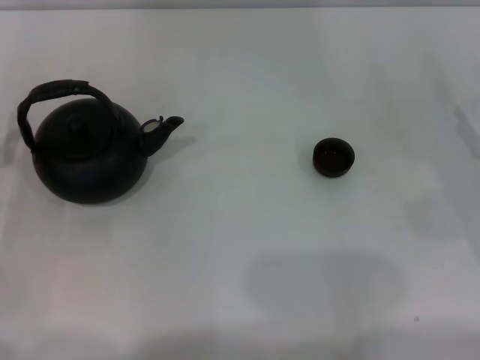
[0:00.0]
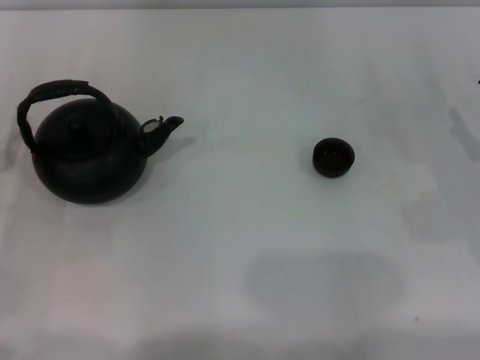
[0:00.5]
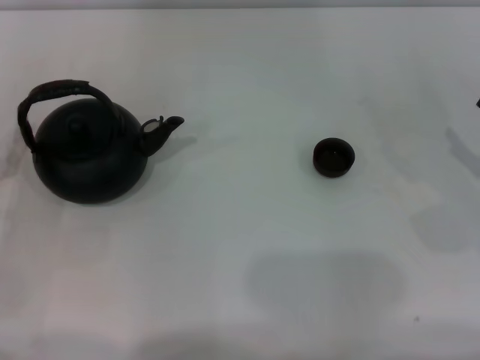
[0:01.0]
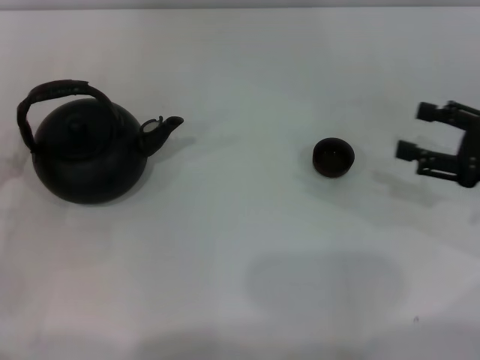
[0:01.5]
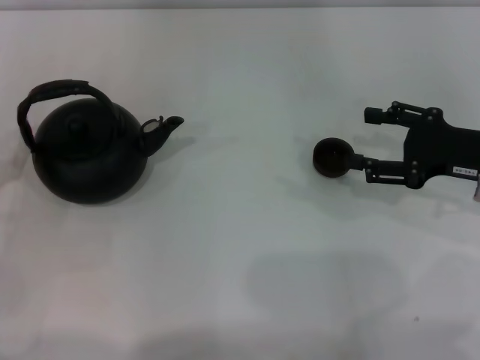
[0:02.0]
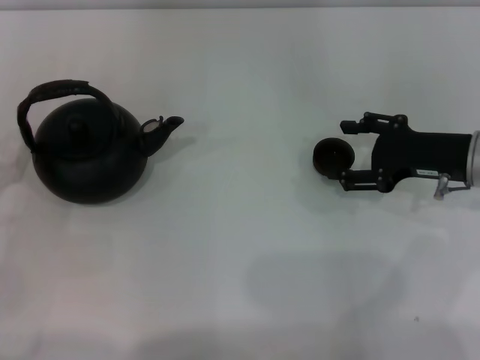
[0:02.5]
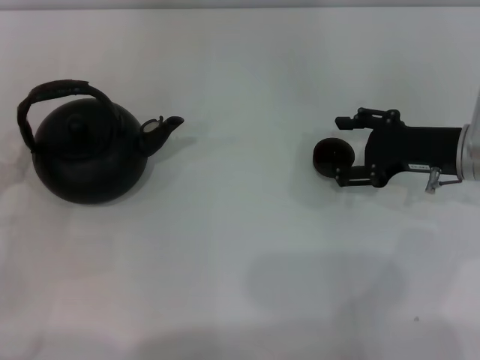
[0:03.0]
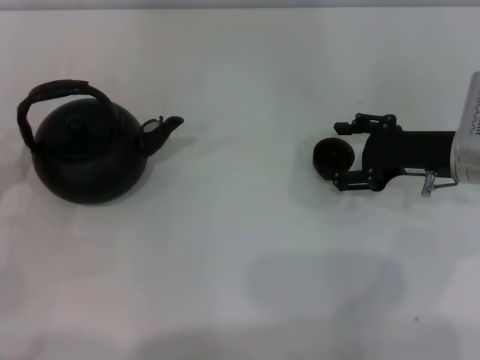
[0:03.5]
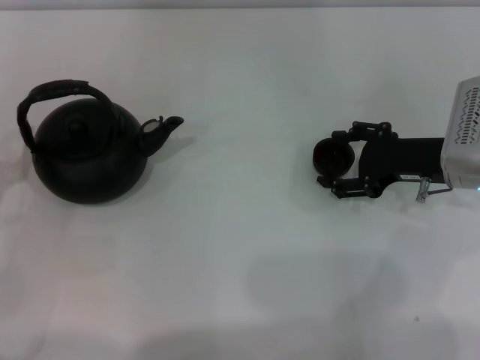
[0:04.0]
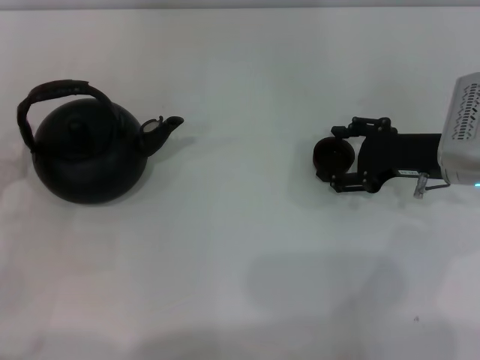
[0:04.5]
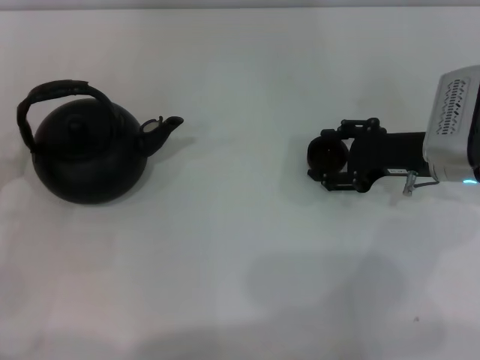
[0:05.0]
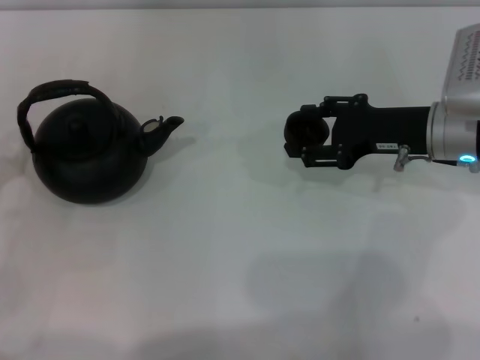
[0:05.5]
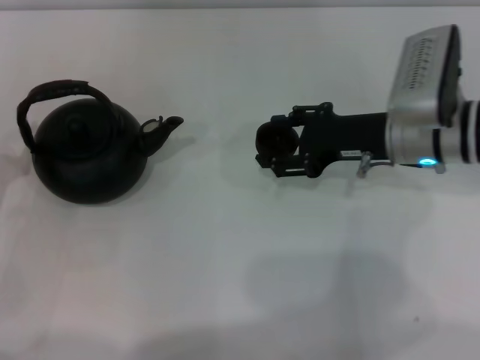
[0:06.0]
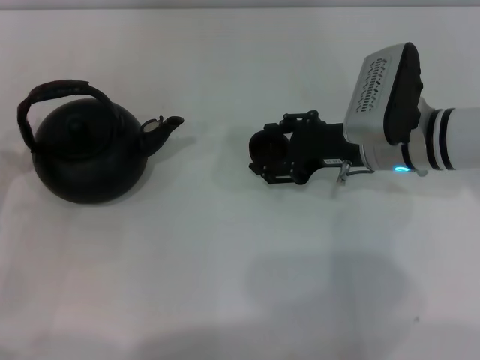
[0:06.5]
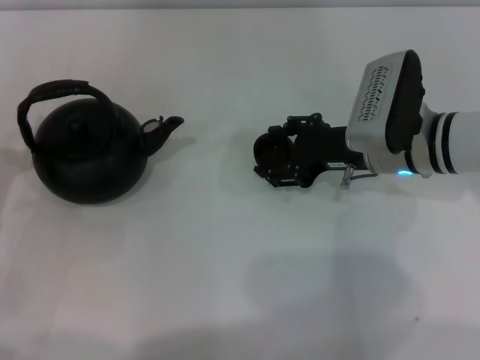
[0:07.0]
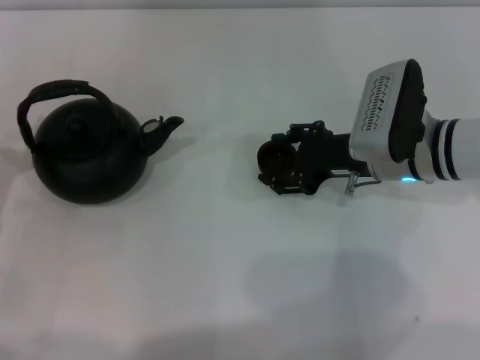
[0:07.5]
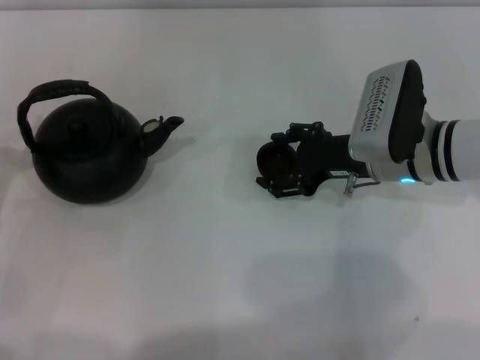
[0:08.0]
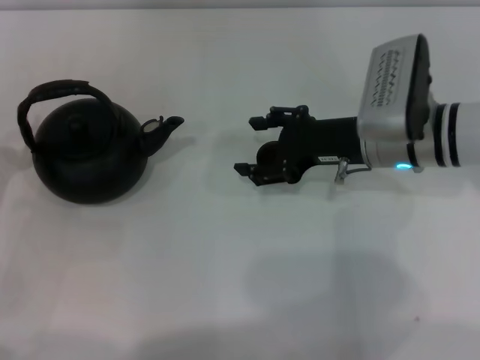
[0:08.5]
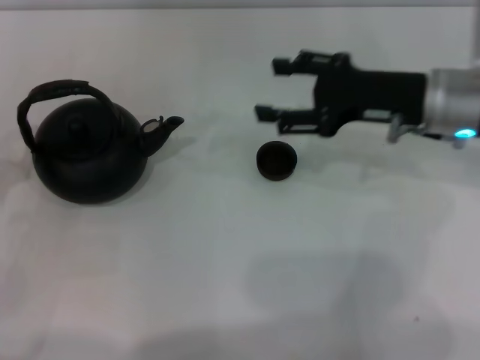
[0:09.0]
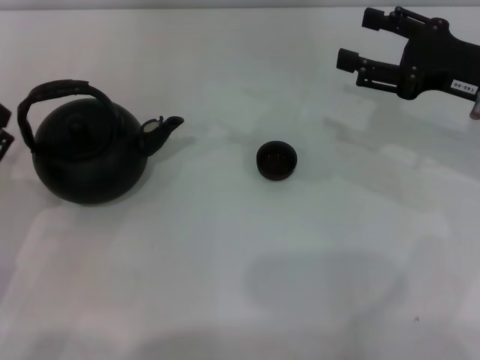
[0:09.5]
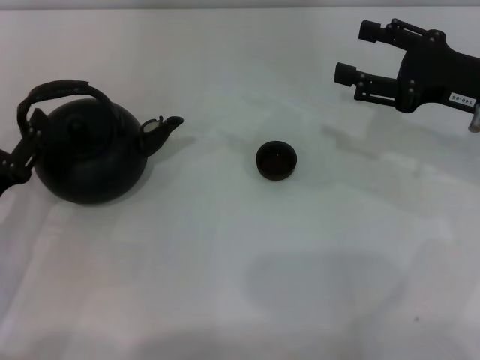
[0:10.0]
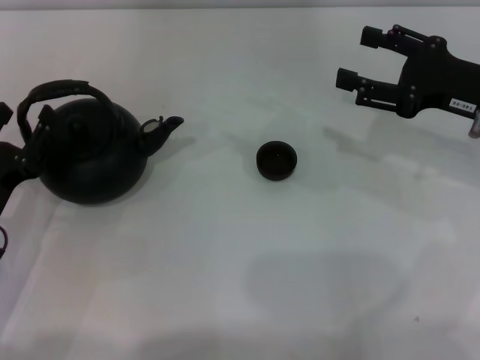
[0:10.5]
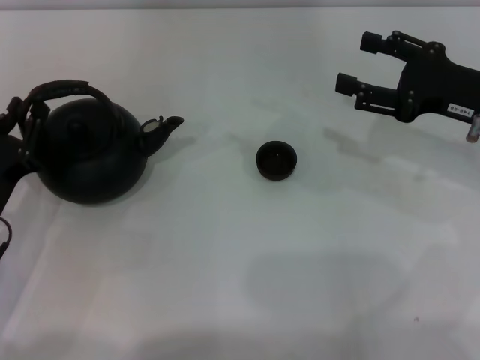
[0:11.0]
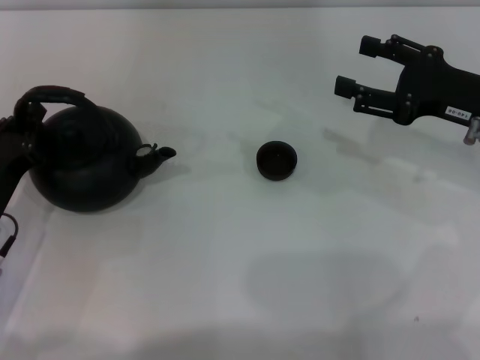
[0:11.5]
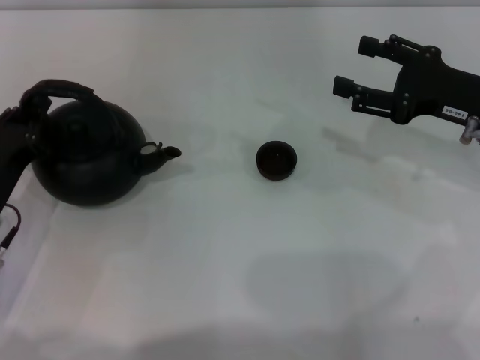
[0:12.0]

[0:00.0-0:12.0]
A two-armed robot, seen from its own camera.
Task of the whole recording: Grasp the handle of the teapot with one hand and pour tea into the teacup.
Step, 0:00.0 to 0:05.0: Pick up the teacup with the right gripper.
Step, 0:06.0 to 0:08.5: Place the teacup in the center of view with the right gripper.
0:00.0 to 0:02.0: The right gripper travels to the left by roughly 5 cm.
0:02.0 to 0:04.0: The right gripper changes place by roughly 5 cm.
0:04.0 to 0:06.0: The right gripper is displaced to the left by approximately 5 cm.
0:06.0 to 0:08.0: The grippers make only small movements.
0:08.0 to 0:10.0: The right gripper is displaced to the right and upward by about 10 cm.
0:10.0 to 0:12.0: The left gripper closes its fingers.

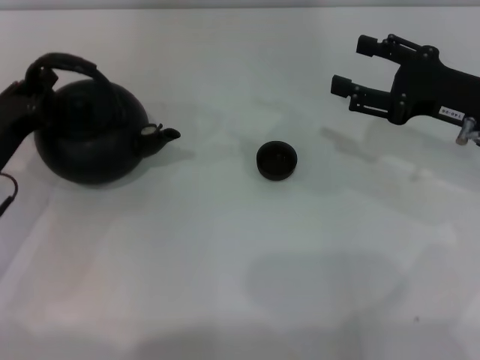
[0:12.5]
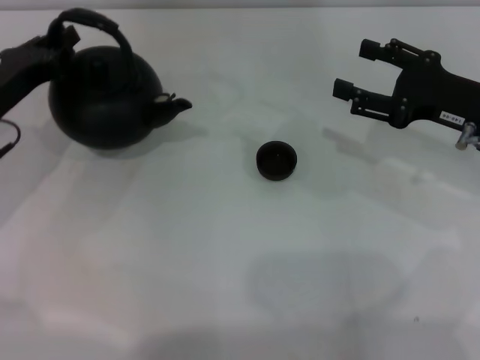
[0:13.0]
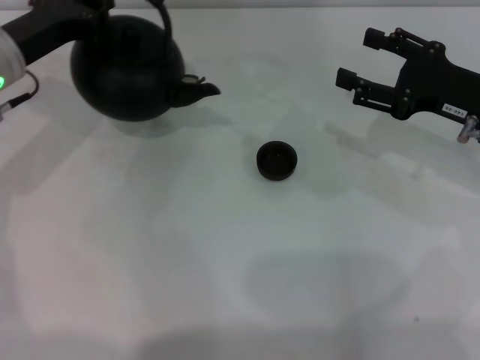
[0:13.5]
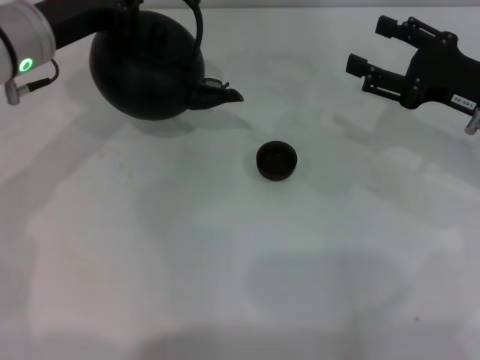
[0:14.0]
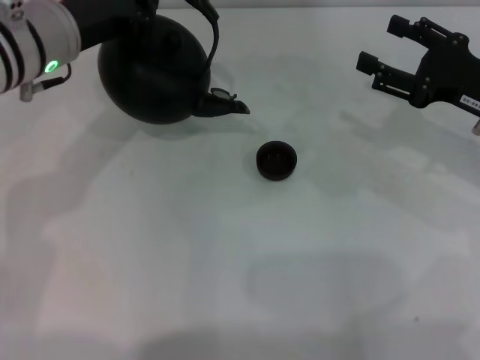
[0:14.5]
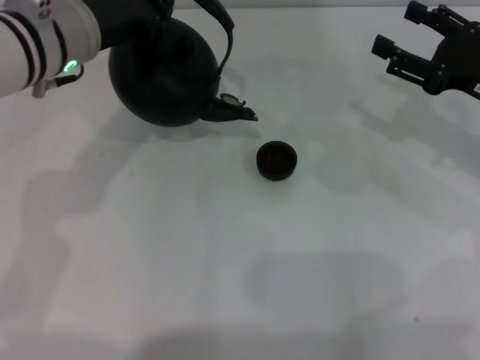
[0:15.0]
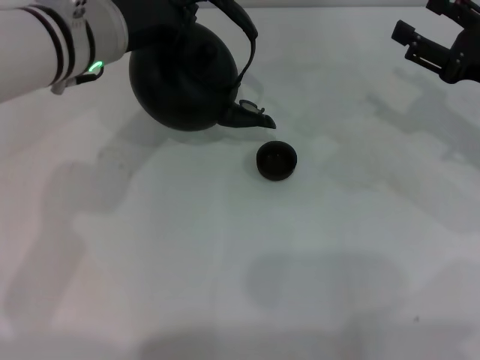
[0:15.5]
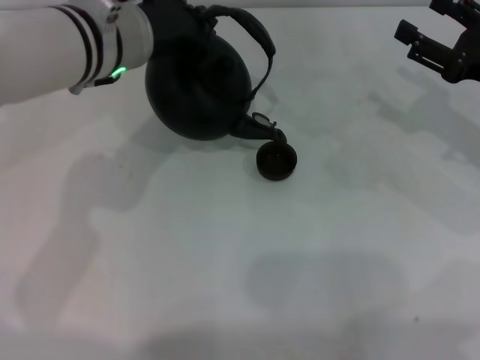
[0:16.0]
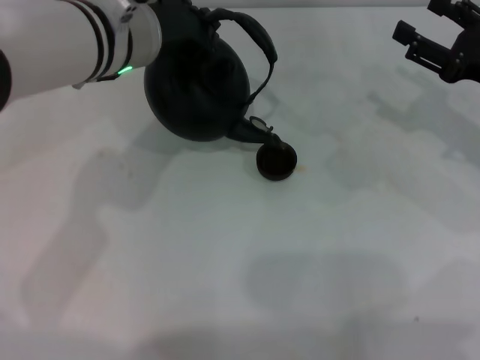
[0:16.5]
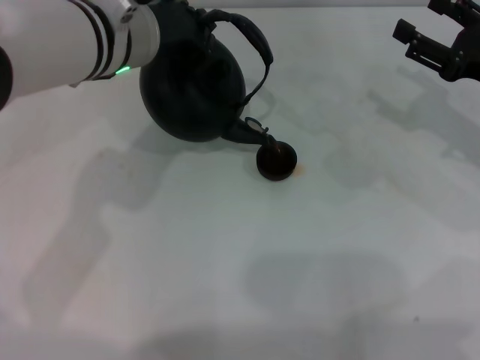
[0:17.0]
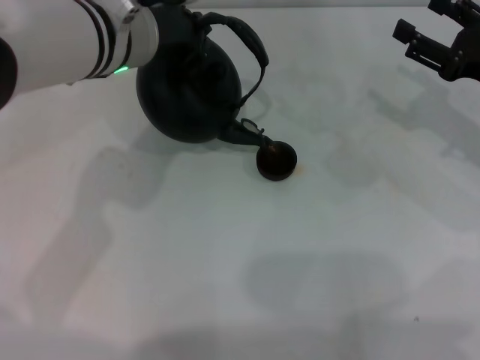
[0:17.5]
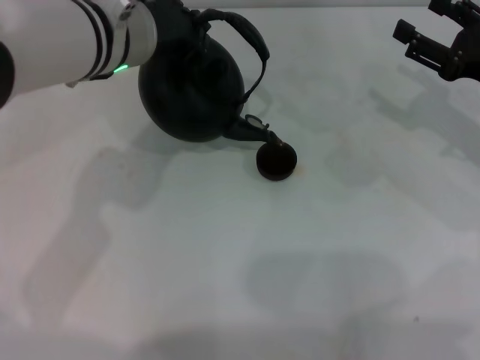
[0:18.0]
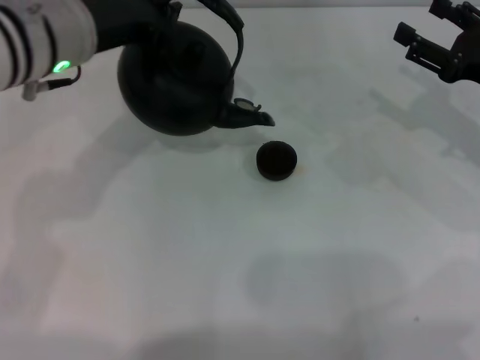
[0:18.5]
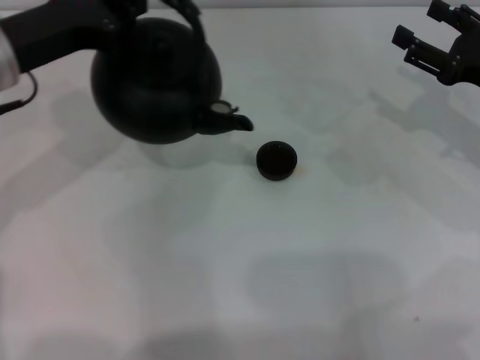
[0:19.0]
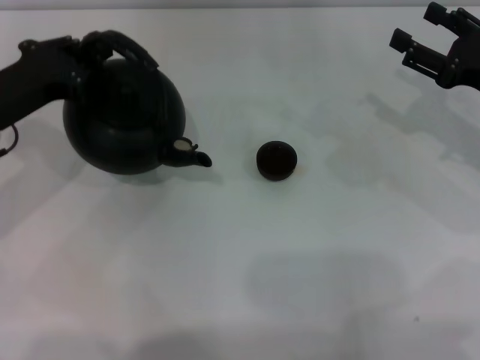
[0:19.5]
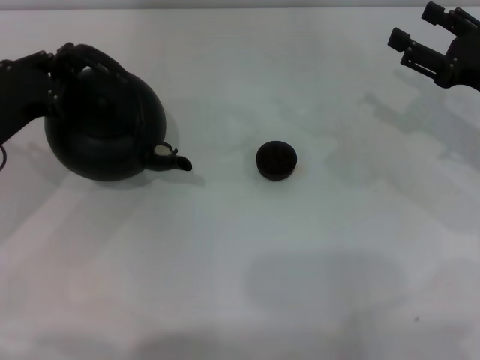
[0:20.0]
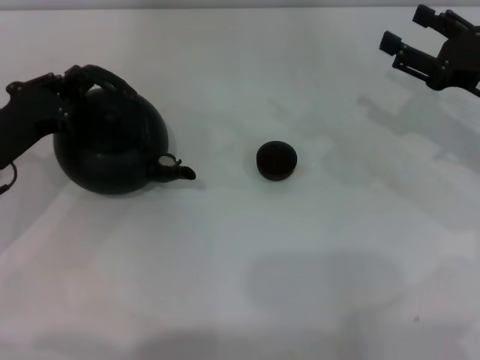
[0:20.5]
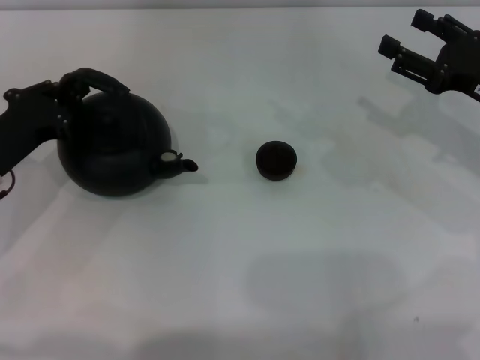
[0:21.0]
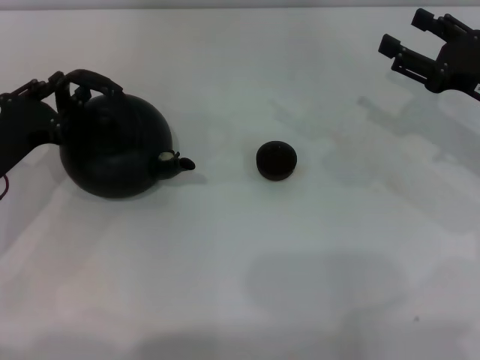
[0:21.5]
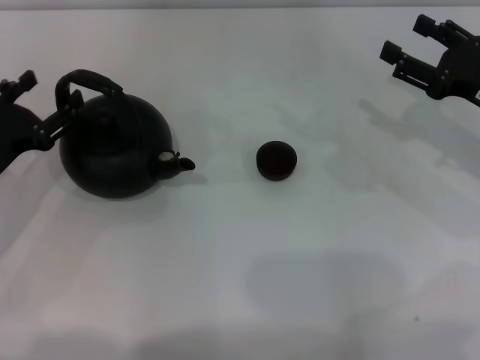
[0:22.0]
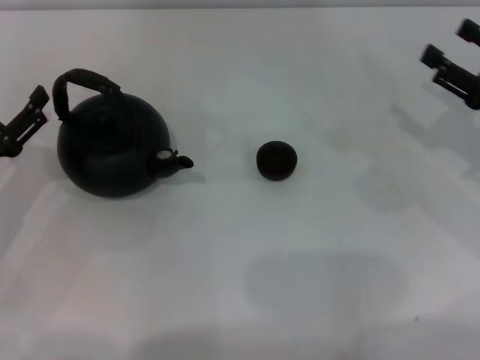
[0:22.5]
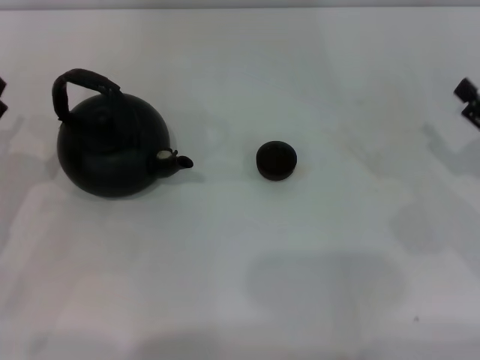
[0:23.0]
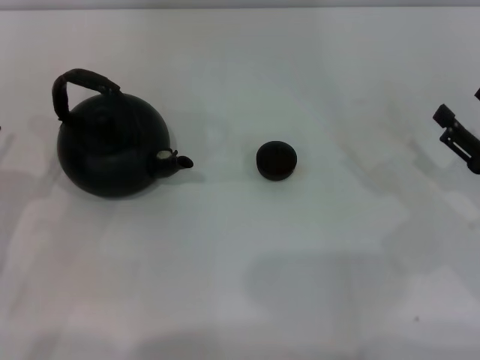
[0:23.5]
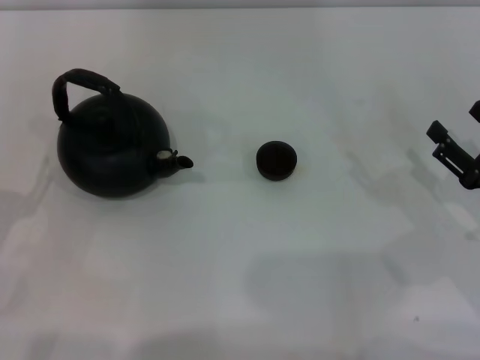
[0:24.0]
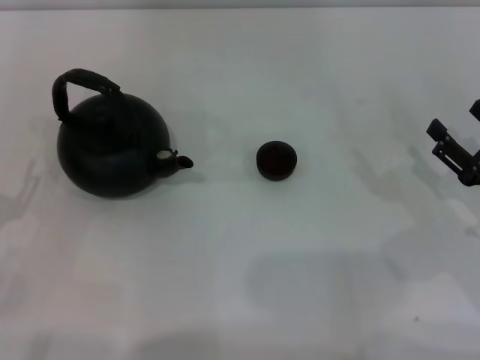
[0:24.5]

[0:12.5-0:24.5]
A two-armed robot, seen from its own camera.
Task of the whole recording: Grasp the handle of the teapot with one hand and pour tea into the teacup.
Step, 0:13.0 to 0:18.0: Pour tea into the teacup with the left gripper.
Step, 0:18.5 to 0:22.0: Put down the teapot with the left gripper.
0:12.5 to 0:14.5: The left gripper shifts some 20 cm upward, to the right and forward.
0:14.5 to 0:16.5: The left gripper heads to the right, covering roughly 5 cm.
0:16.5 to 0:18.5: The left gripper is displaced to the left by roughly 5 cm.
0:18.5 to 0:20.5: The left gripper goes about 20 cm downward, to the left and backward.
0:20.5 to 0:22.5: The left gripper moves backward, approximately 5 cm, and opens up.
0:22.5 to 0:24.5: The right gripper moves backward and downward, about 10 cm, while the left gripper shifts approximately 5 cm backward.
